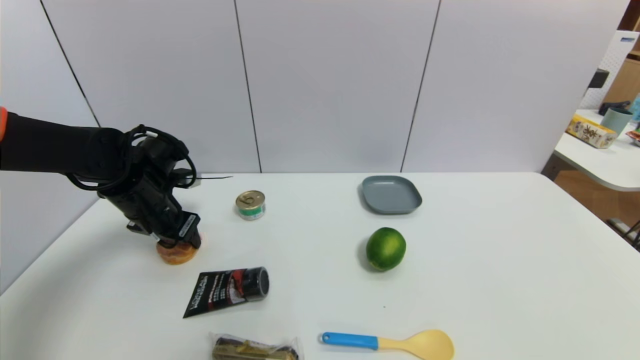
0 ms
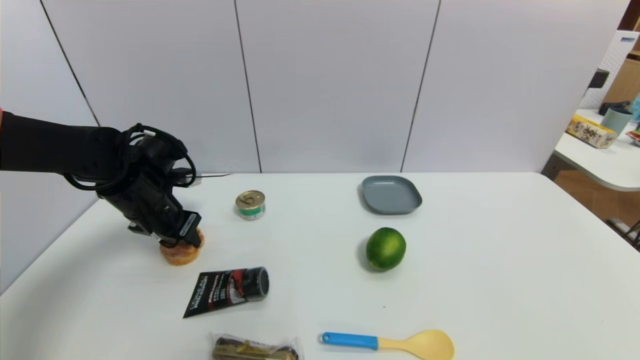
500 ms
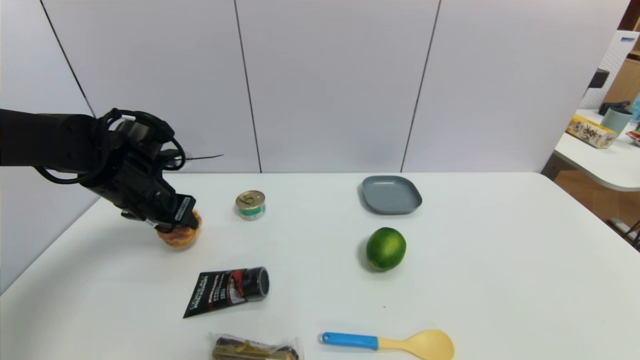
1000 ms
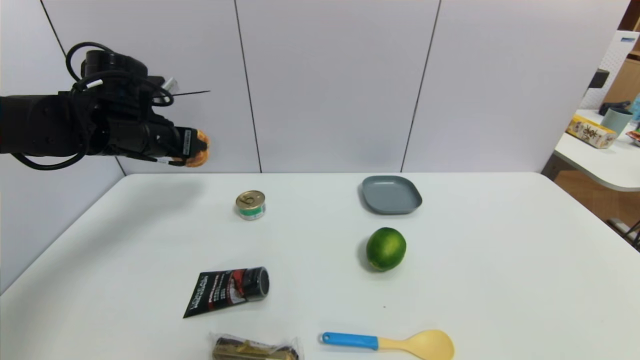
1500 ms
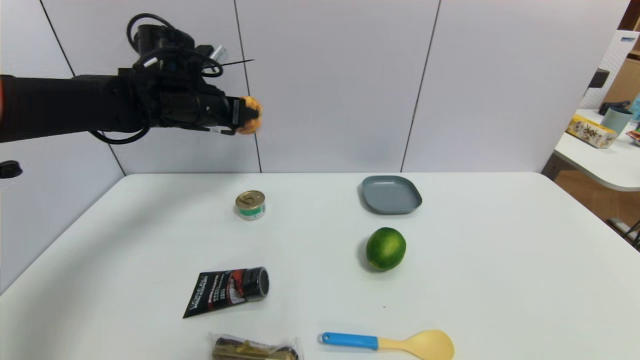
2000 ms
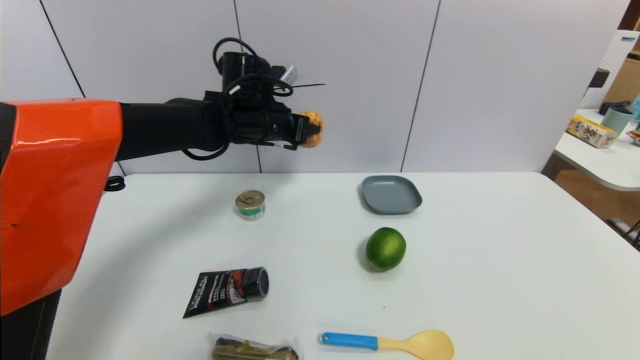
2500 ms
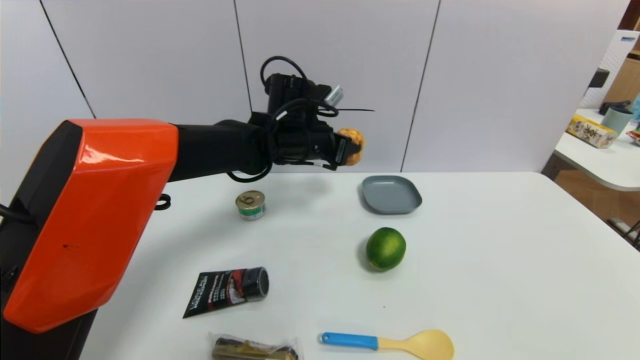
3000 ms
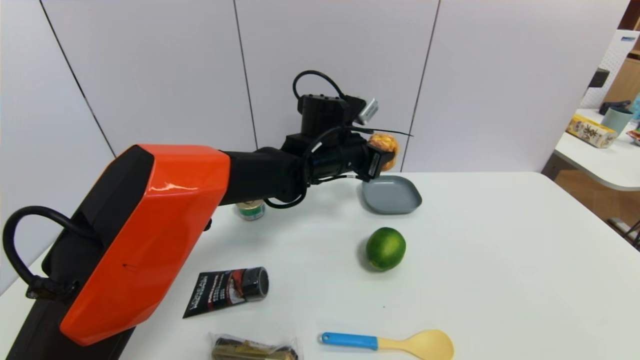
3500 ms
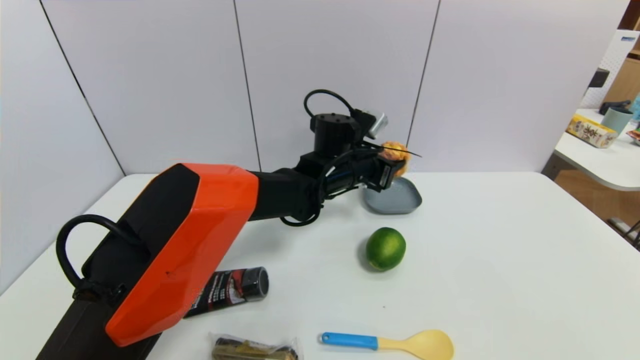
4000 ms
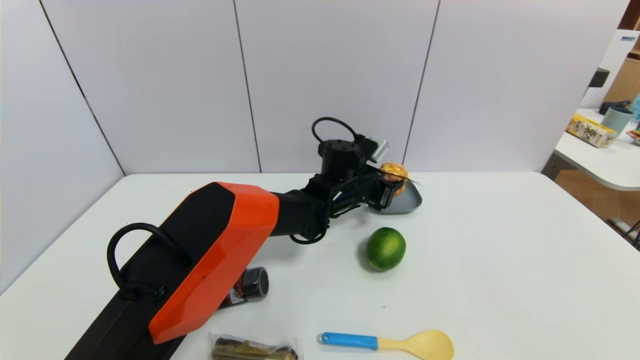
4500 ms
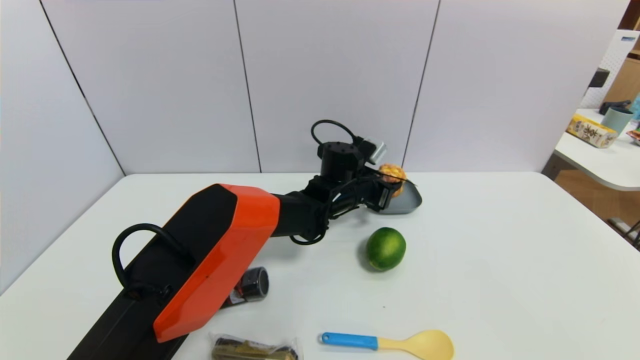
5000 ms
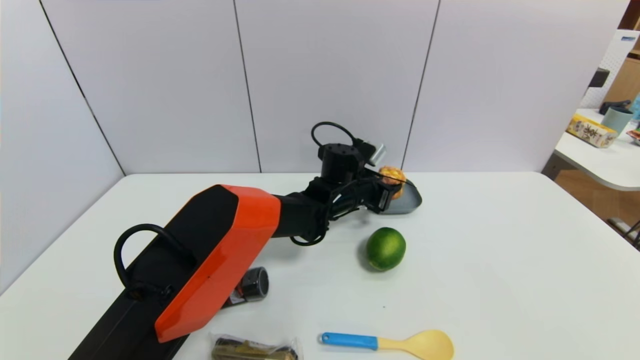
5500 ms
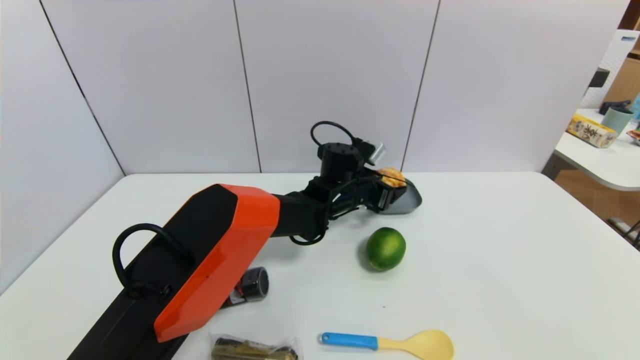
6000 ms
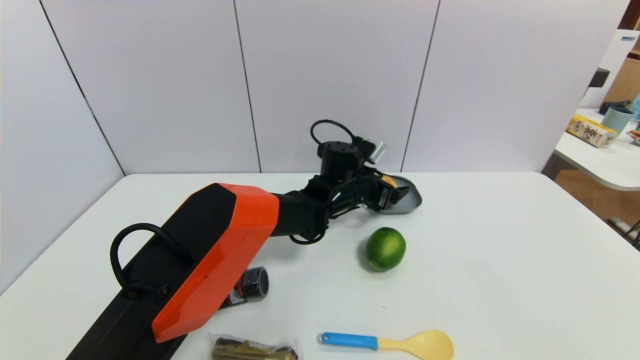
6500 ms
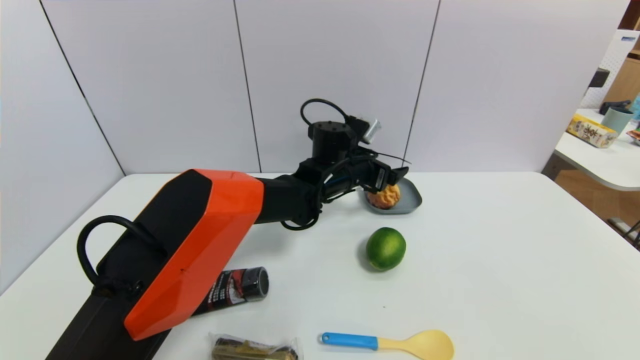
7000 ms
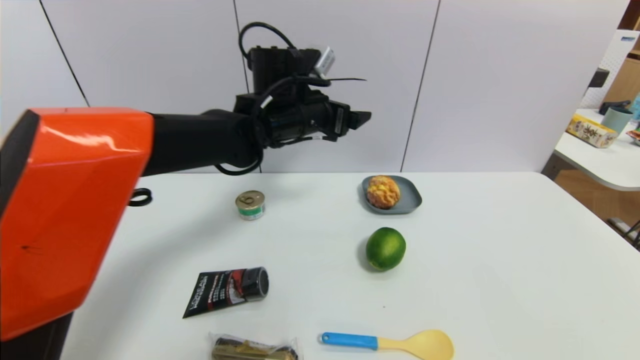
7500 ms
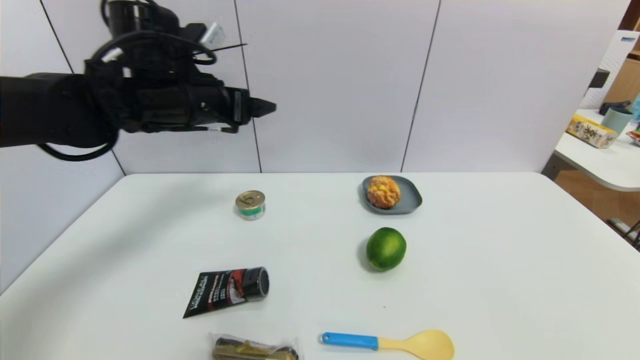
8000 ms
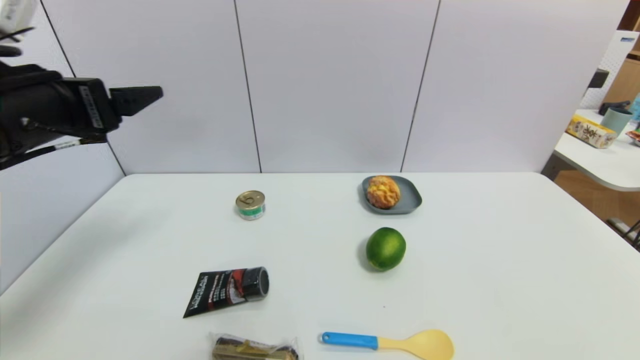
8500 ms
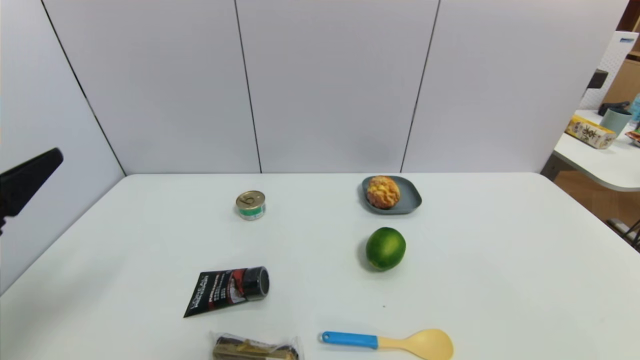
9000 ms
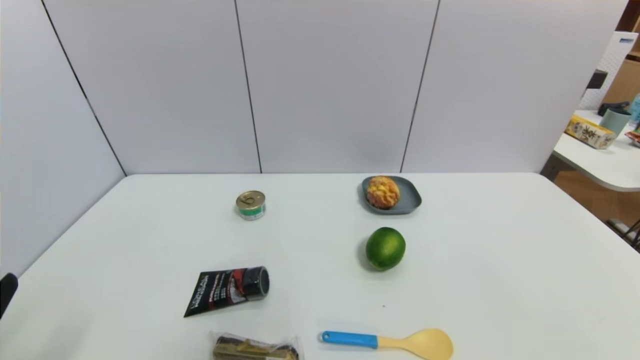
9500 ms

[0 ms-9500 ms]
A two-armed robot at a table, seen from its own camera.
Task of the whole recording: use a gripper to pick the target object and place on the dish.
Step, 500 ms to 7000 ms: Place the round bread on the dish with the left gripper.
0 ms to 2000 ms: The left gripper moves upward, to the right and forward, roughly 15 cm.
2000 ms to 4000 ms: The left gripper is displaced to the right and downward by about 25 cm.
4000 ms to 5500 ms: The left gripper heads downward, covering about 5 cm.
5500 ms to 7500 ms: The left gripper moves upward and to the left, about 20 cm, and opens up.
7500 ms to 9500 ms: The left gripper goes roughly 50 cm backward and to the left.

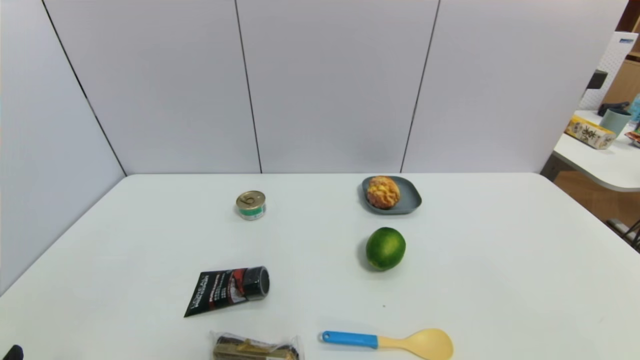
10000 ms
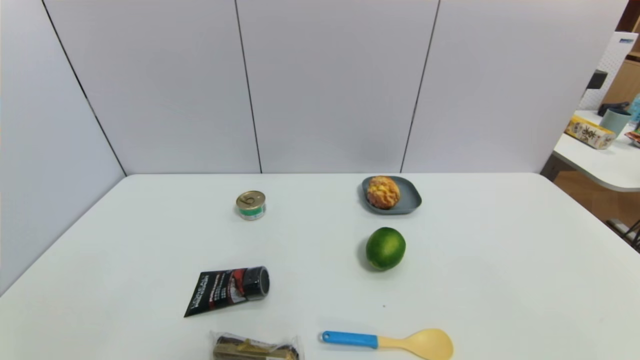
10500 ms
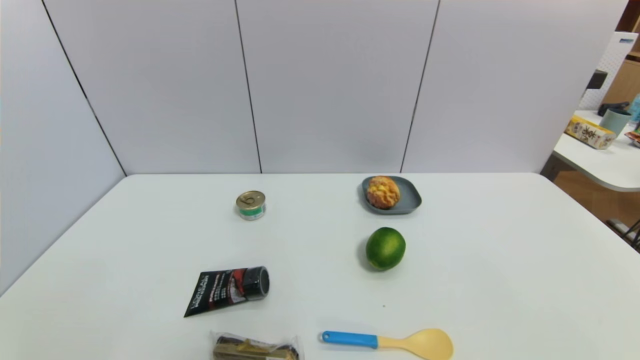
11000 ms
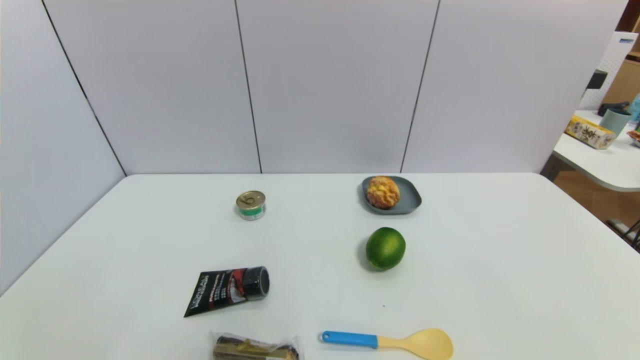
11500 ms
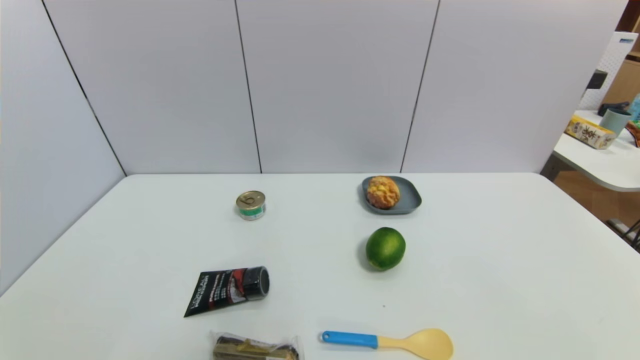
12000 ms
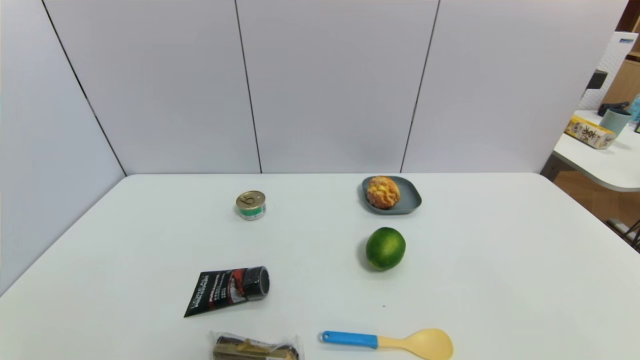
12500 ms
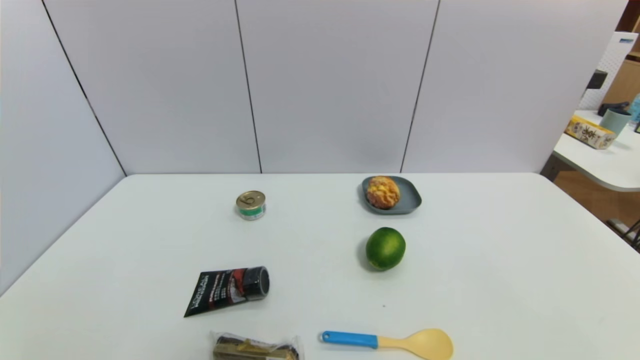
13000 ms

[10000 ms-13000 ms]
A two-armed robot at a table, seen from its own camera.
Task of the whole recording: use a gripper to pick the target object and place on the dish.
11500 ms to 13000 ms: Neither gripper changes place.
